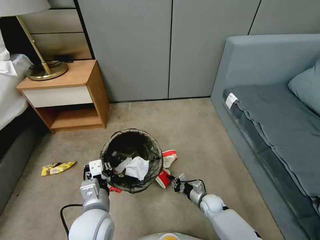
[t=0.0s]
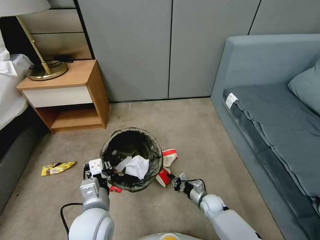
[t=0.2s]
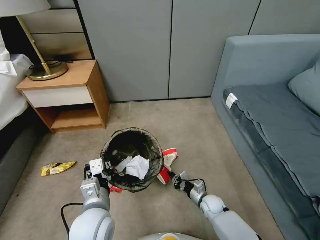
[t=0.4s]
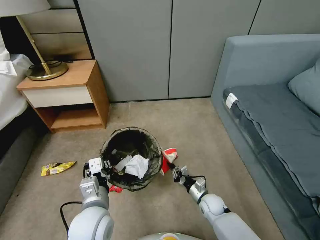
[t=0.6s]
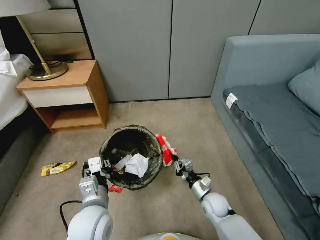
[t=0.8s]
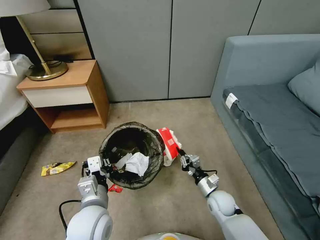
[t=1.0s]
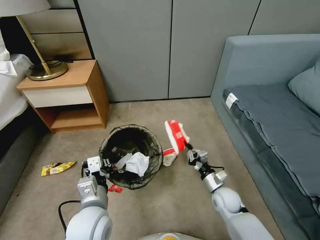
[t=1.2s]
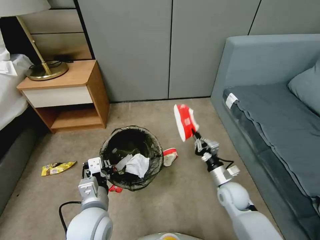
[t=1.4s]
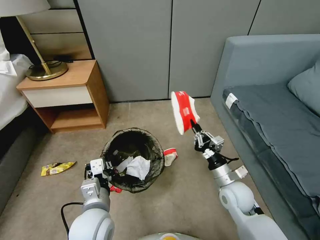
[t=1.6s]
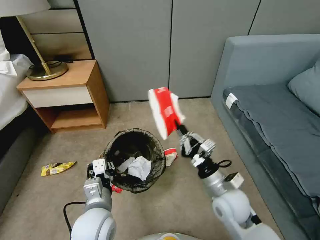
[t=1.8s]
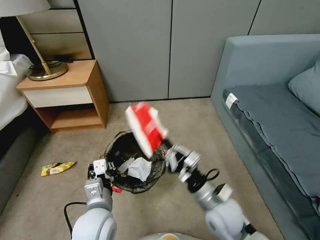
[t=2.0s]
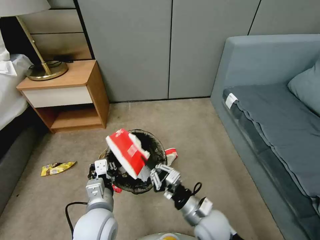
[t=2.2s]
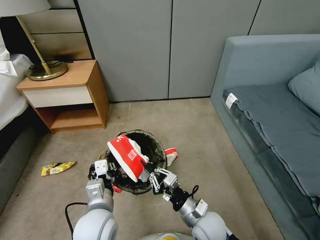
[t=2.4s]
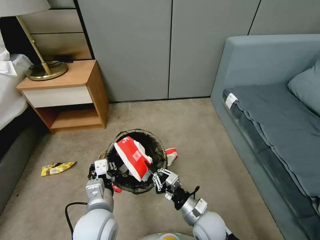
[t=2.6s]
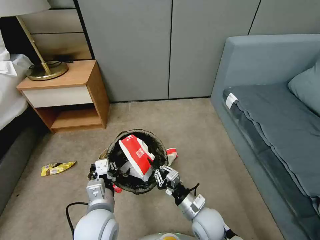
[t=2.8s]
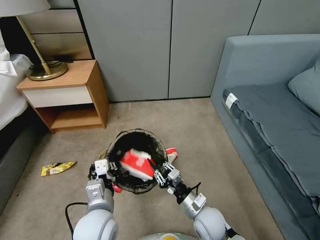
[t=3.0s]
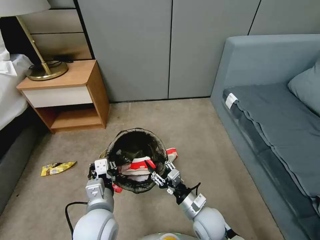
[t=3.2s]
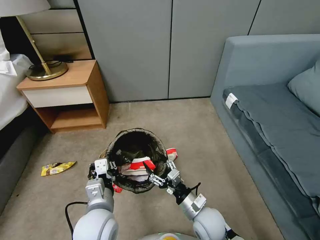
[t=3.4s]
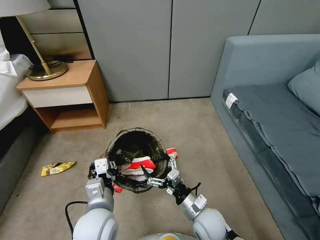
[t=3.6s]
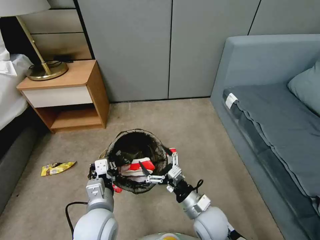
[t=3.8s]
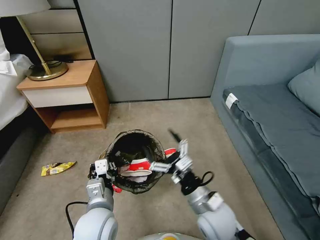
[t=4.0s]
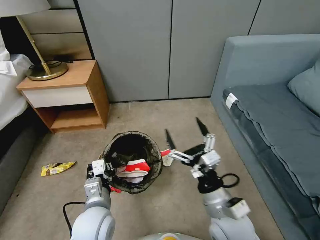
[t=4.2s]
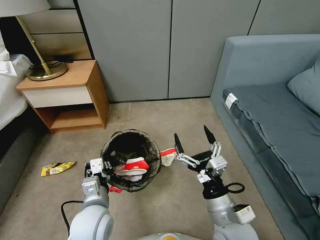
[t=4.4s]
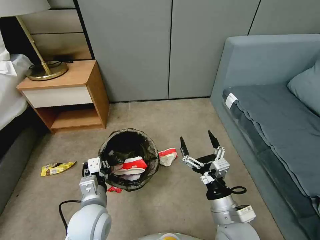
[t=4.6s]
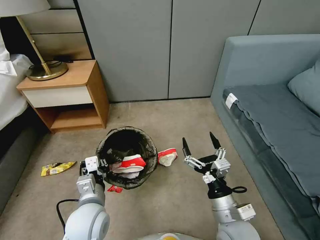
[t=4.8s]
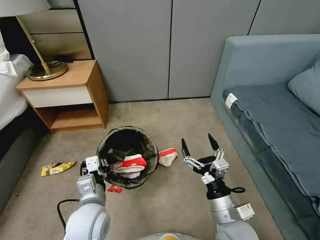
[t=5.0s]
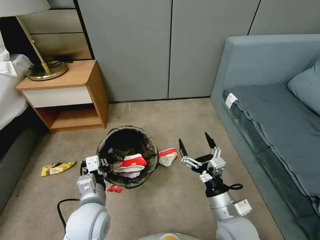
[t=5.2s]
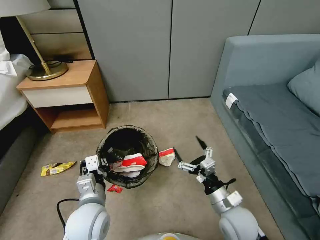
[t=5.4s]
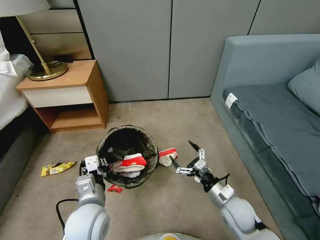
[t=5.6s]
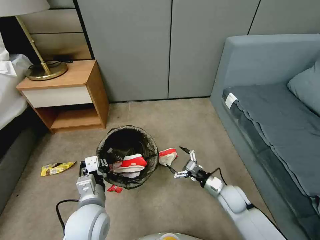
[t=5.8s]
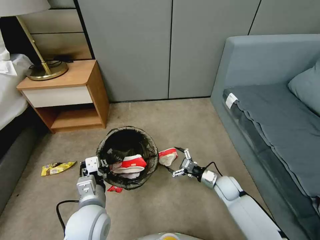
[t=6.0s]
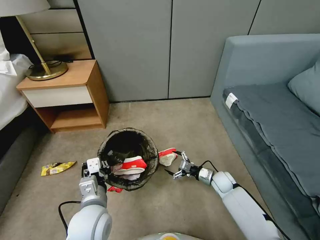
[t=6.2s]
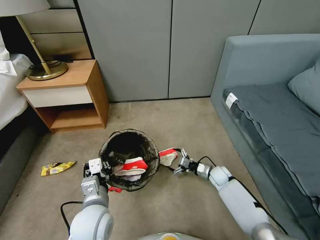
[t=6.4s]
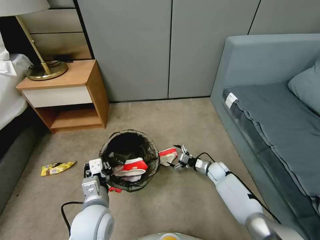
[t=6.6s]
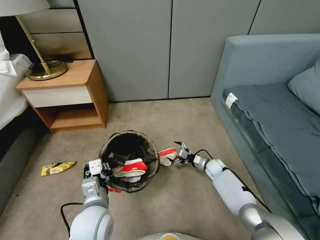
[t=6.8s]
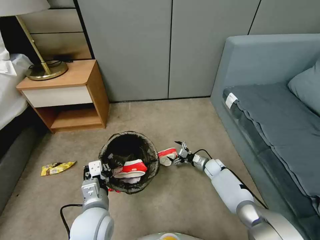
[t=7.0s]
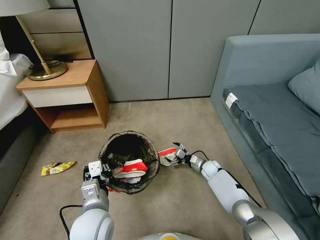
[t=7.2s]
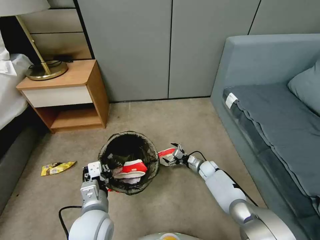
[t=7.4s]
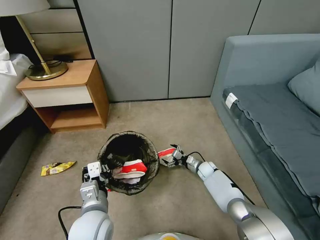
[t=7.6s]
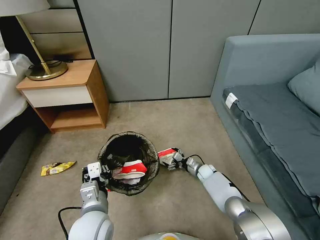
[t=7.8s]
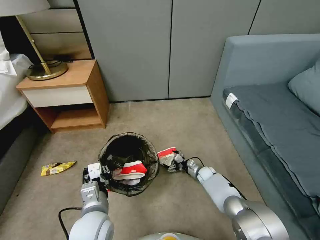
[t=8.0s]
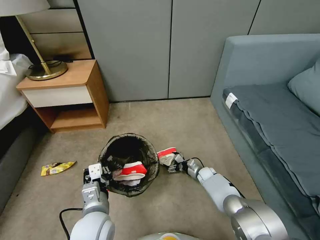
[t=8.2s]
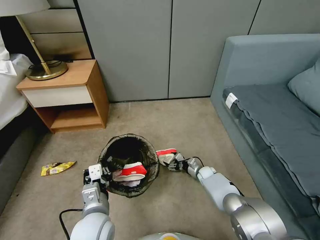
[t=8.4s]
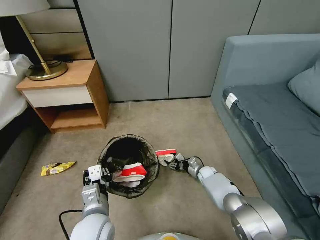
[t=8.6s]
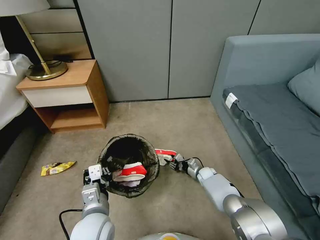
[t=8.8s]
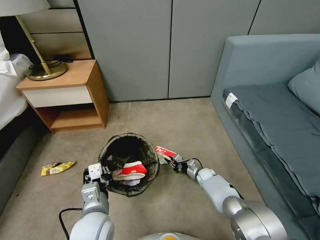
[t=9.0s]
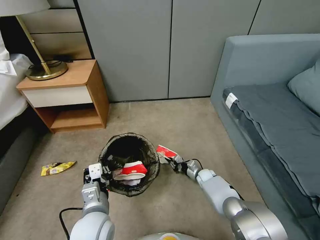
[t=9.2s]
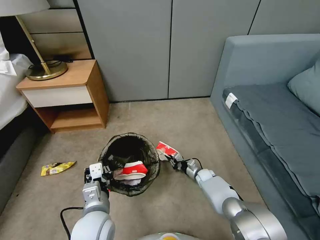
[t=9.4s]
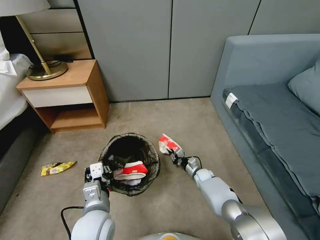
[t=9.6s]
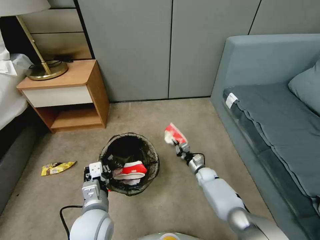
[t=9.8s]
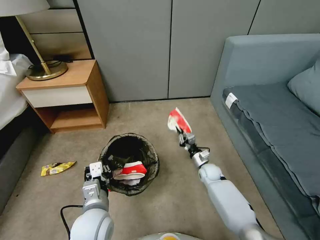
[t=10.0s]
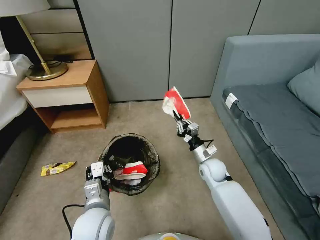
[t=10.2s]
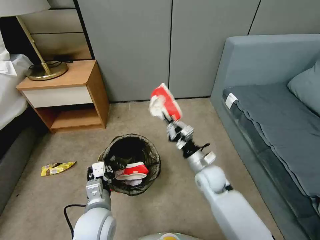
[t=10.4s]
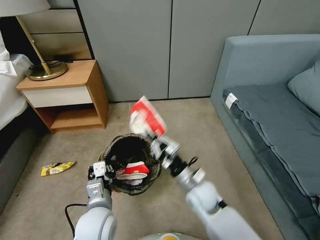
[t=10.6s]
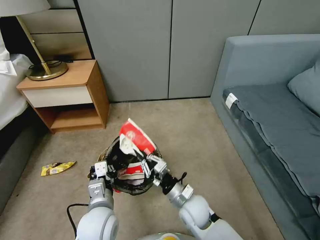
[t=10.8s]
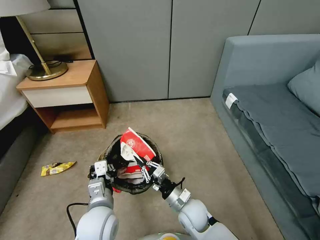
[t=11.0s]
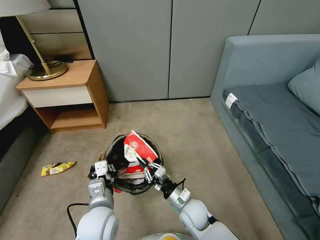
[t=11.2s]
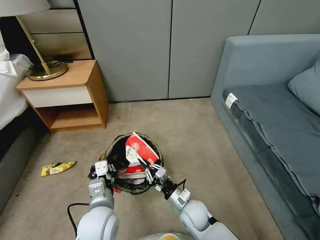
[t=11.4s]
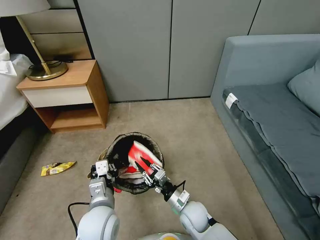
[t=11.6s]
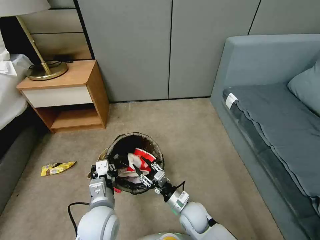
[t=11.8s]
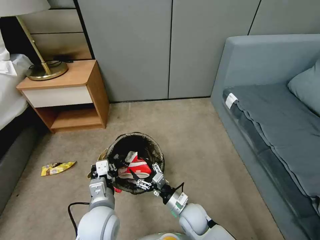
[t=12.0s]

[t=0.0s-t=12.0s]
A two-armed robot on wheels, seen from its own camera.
Task of the whole recording: Pick up the trash bin, then pick up the garbage from the floor and place it into the trash bin.
t=0.0s to t=1.6s: The right gripper moves upward, about 25 cm.
t=1.6s to t=3.0s: The right gripper shifts about 15 cm to the left, downward and backward.
t=3.0s to t=4.4s: The right gripper goes approximately 15 cm upward and backward, and opens.
t=4.4s to t=6.0s: The right gripper is displaced downward, forward and to the right by about 30 cm.
t=6.0s to t=7.6s: The right gripper shifts approximately 15 cm forward and downward.
t=7.6s to t=9.0s: The right gripper closes.
t=9.0s to t=10.4s: The right gripper shifts some 20 cm upward.
t=10.4s to t=12.0s: The right gripper shifts some 20 cm backward, downward and to the left, and opens up.

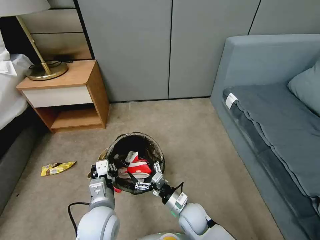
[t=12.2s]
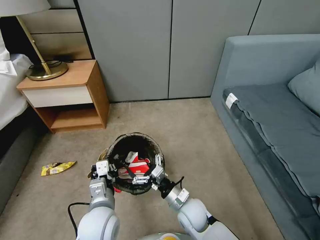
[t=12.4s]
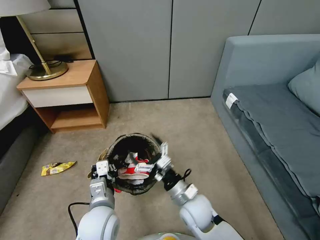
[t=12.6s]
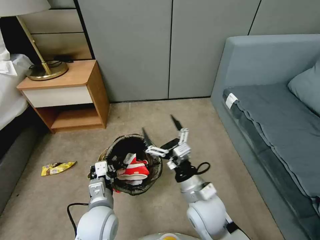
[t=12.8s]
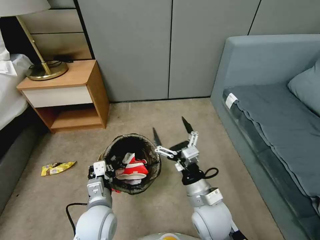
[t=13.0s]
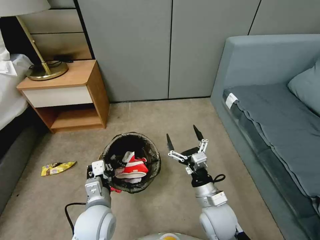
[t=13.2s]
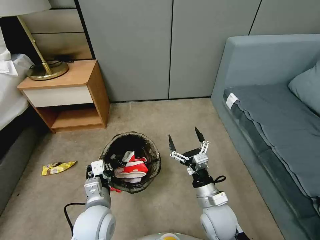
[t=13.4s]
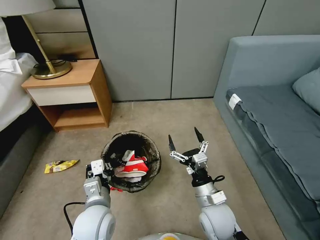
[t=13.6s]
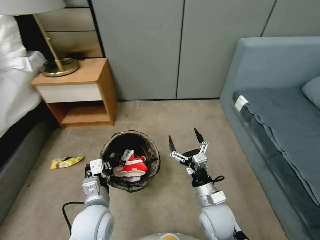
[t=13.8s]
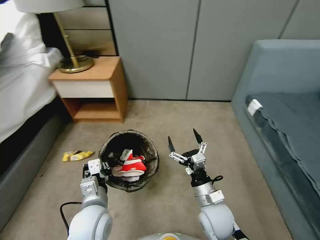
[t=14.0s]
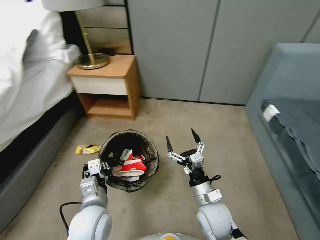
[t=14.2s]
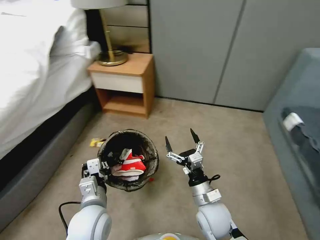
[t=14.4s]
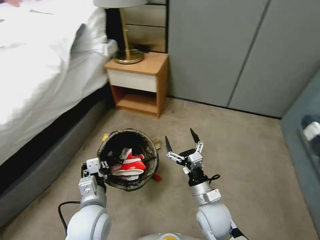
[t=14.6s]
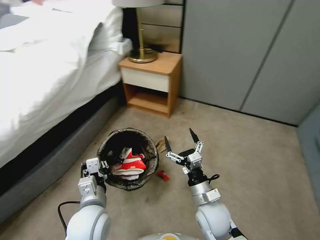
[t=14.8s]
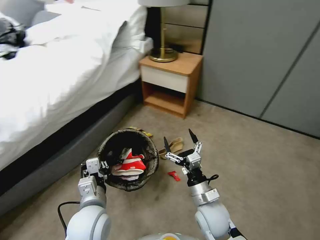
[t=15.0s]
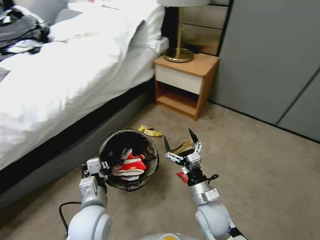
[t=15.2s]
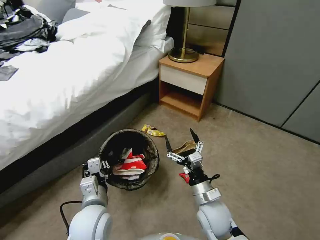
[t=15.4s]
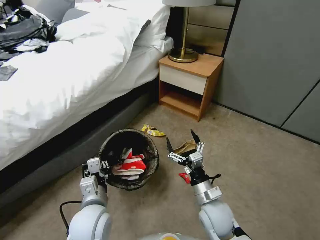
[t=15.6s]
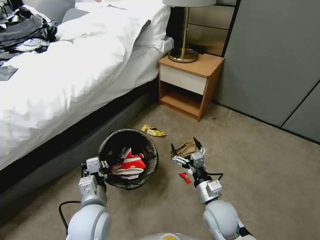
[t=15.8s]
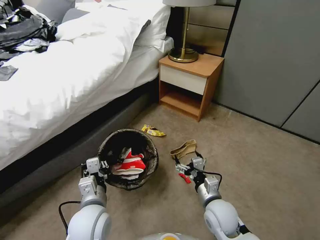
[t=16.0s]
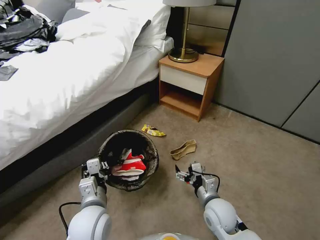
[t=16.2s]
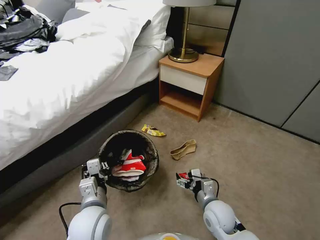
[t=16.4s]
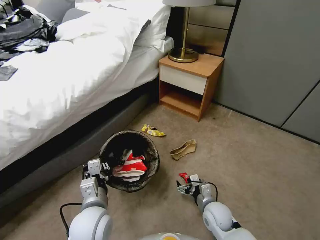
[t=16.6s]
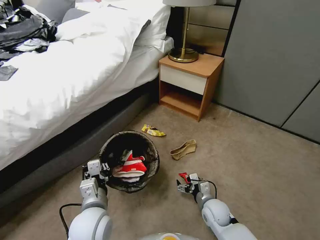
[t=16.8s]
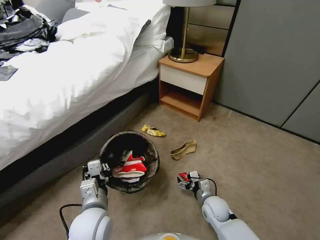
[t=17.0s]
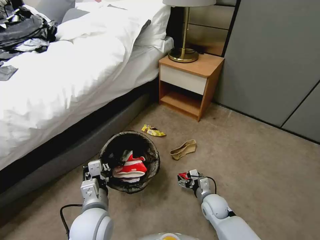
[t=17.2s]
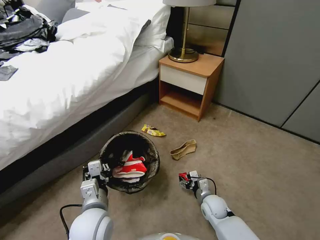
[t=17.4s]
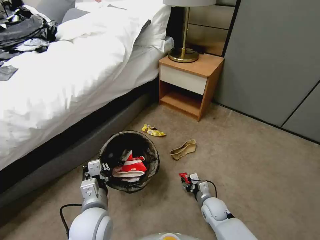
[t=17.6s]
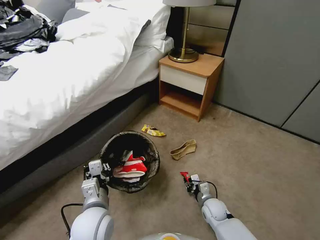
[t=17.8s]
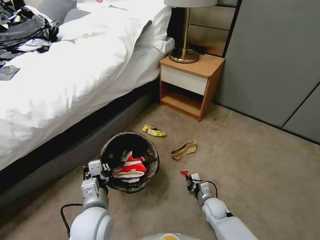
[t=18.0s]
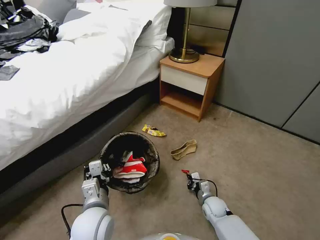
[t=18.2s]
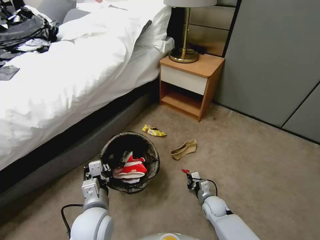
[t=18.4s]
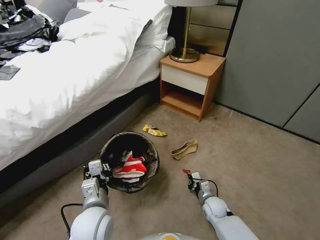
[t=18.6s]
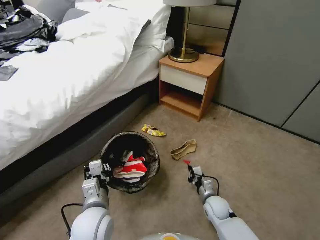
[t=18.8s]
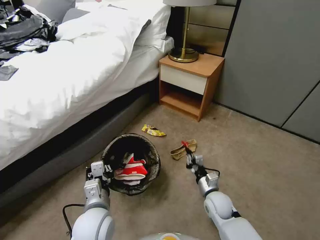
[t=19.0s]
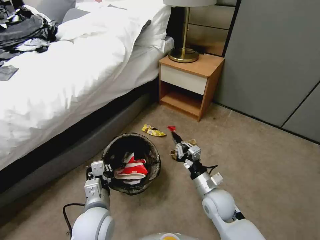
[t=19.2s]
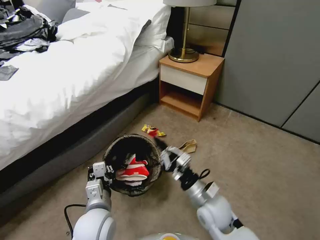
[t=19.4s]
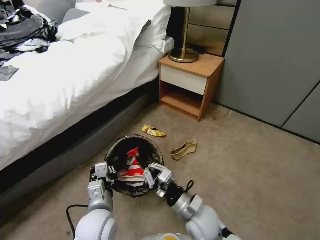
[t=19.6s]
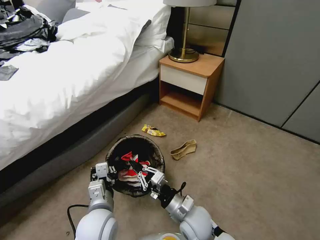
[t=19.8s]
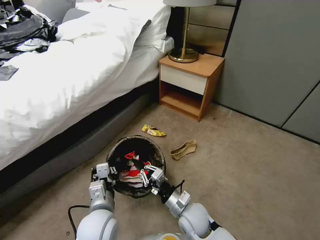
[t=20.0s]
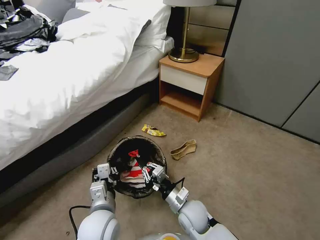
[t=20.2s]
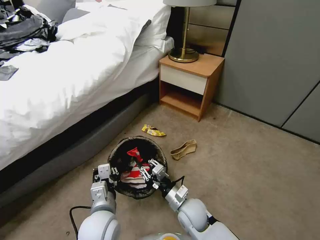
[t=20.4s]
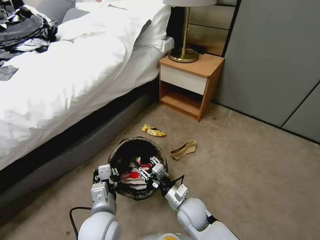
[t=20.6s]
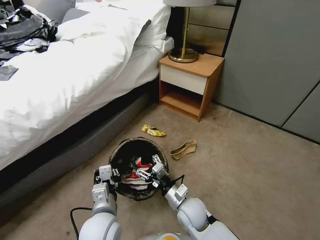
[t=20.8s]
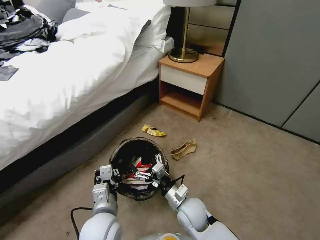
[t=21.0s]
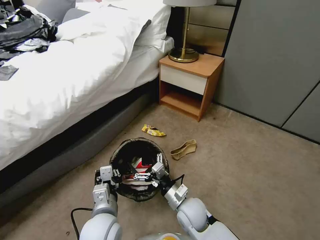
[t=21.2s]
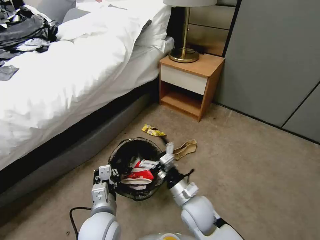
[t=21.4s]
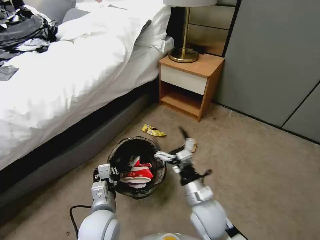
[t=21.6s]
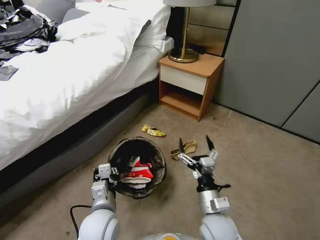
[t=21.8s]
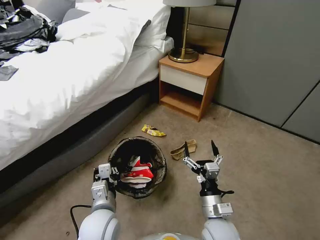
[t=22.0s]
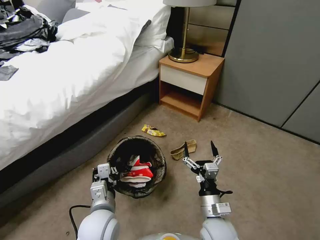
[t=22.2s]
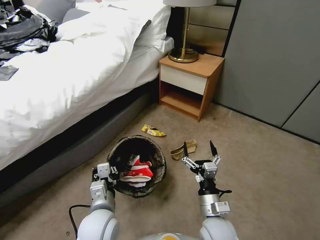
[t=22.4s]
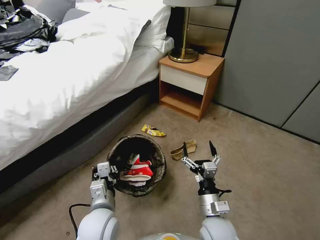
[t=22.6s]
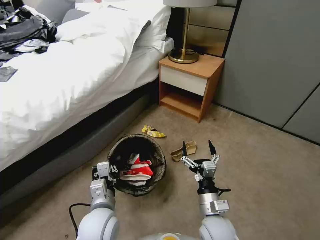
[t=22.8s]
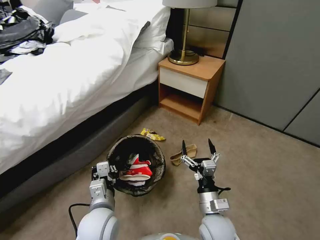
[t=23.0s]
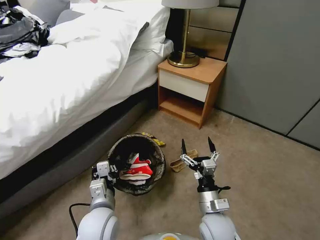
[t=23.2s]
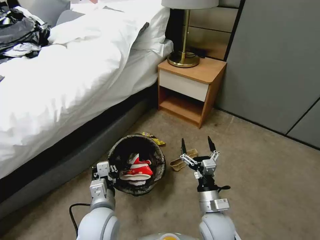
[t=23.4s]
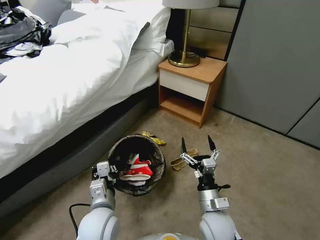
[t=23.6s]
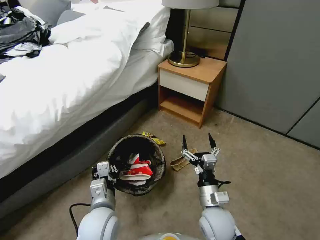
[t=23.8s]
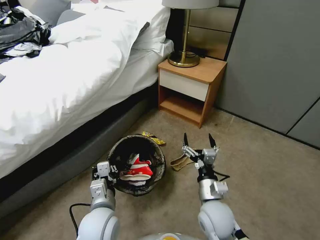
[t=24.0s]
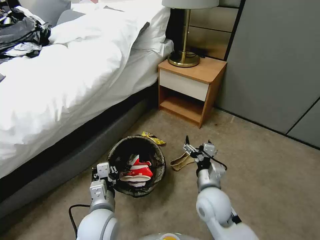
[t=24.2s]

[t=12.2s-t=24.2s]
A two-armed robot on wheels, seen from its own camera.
Task of the whole recording: Pick up the trash bin, then pick up the garbage from the floor and place it into the trash bin.
t=12.2s to t=13.8s: The right gripper travels upward and to the right by about 10 cm.
t=15.2s to t=16.6s: The right gripper goes roughly 10 cm downward.
t=16.6s to t=18.2s: The right gripper is displaced downward by roughly 10 cm, and closes up.
t=18.2s to t=19.8s: The right gripper shifts about 25 cm upward, to the left and backward.
t=19.8s to t=21.2s: The right gripper opens up.
t=21.2s to t=22.6s: The right gripper goes roughly 10 cm to the right and backward.
t=22.6s to t=24.2s: The right gripper shifts roughly 10 cm forward and upward.
